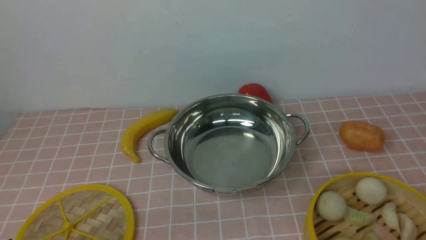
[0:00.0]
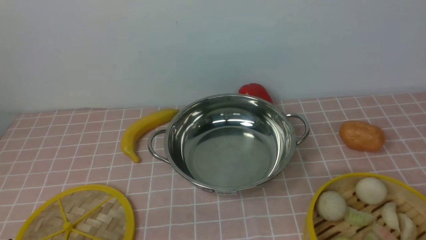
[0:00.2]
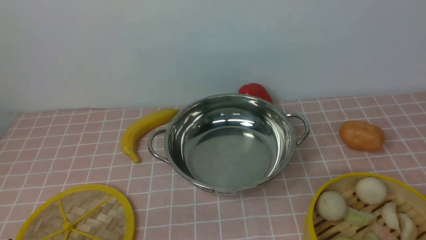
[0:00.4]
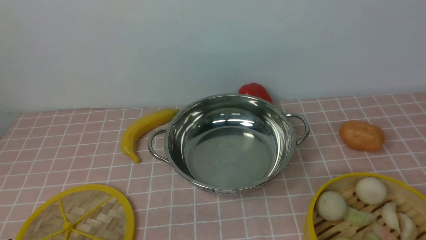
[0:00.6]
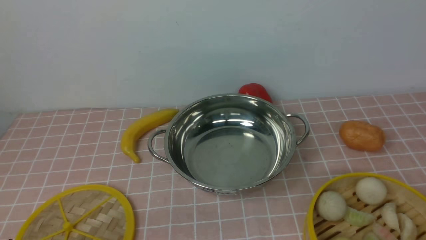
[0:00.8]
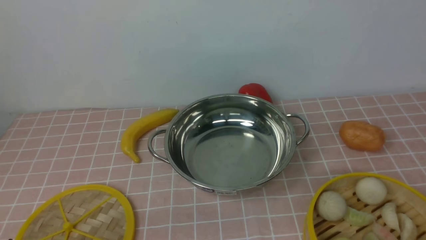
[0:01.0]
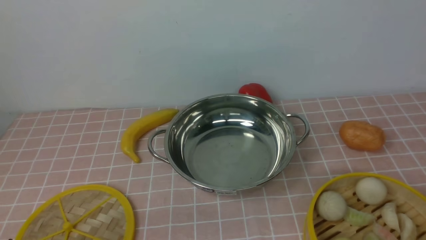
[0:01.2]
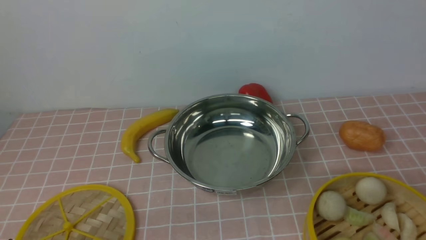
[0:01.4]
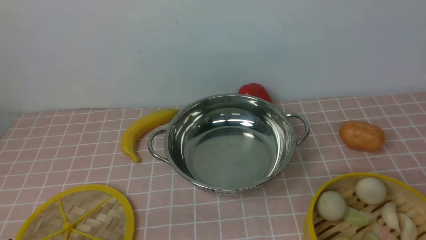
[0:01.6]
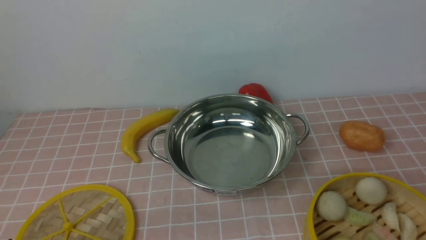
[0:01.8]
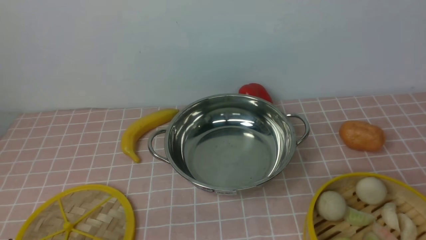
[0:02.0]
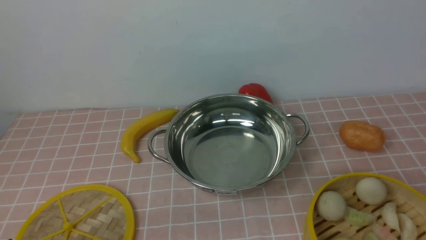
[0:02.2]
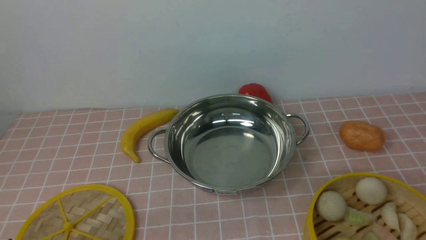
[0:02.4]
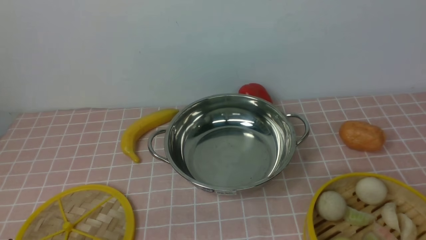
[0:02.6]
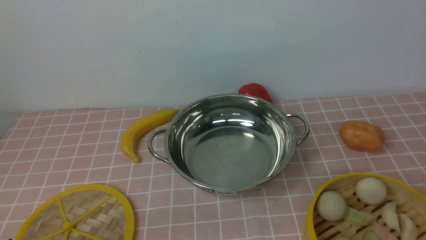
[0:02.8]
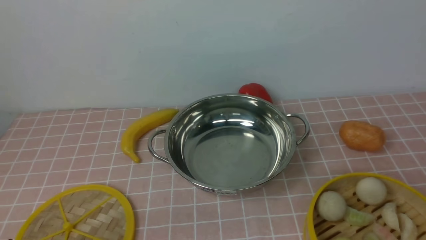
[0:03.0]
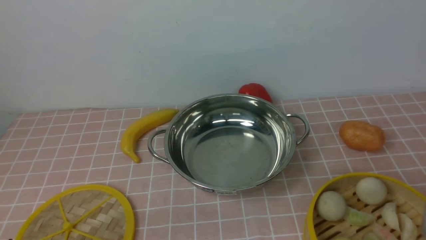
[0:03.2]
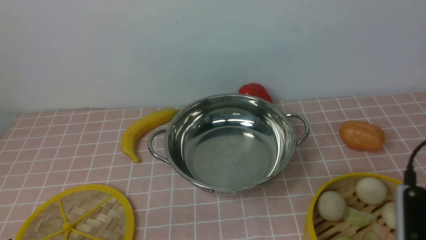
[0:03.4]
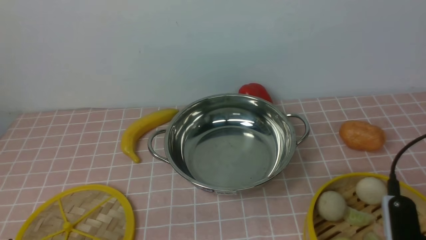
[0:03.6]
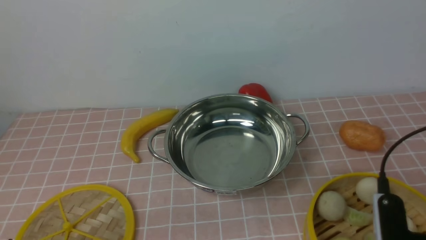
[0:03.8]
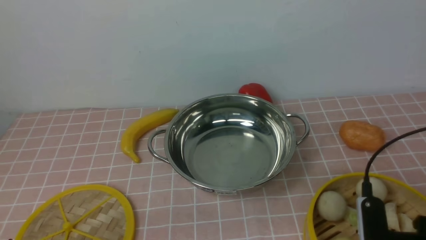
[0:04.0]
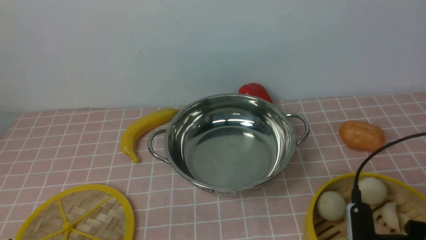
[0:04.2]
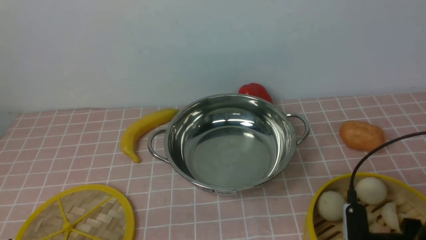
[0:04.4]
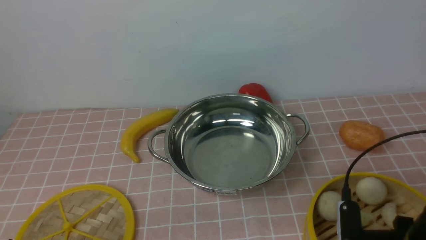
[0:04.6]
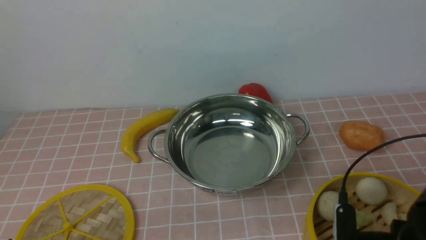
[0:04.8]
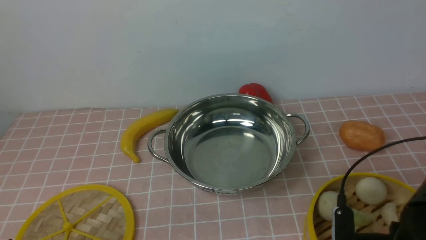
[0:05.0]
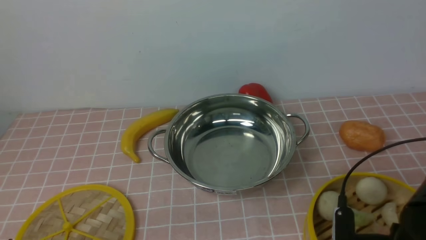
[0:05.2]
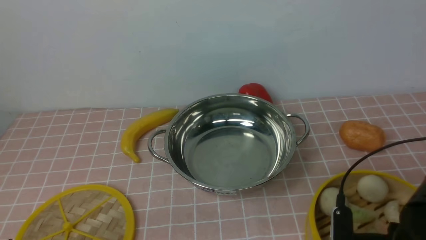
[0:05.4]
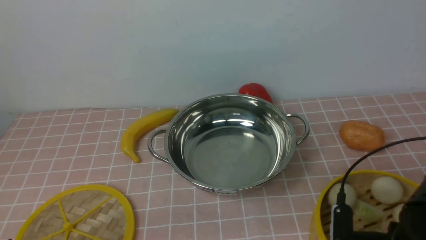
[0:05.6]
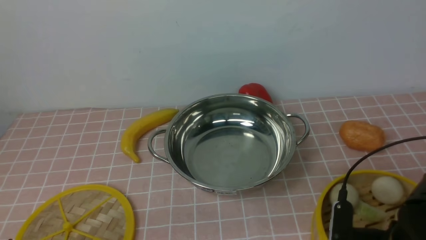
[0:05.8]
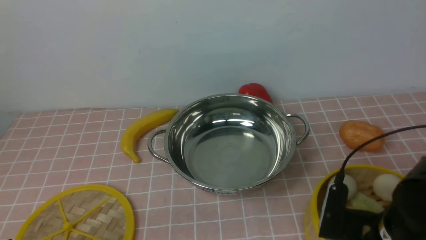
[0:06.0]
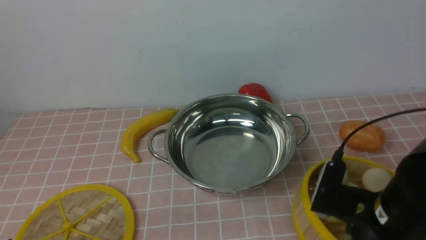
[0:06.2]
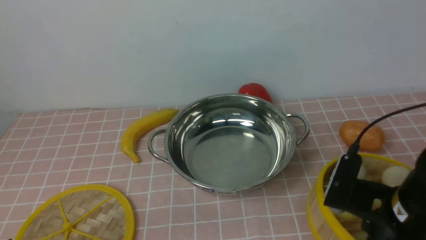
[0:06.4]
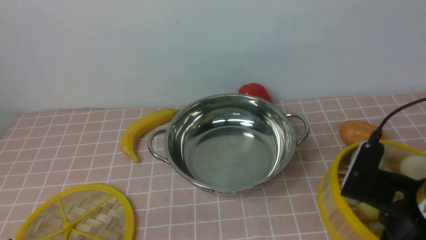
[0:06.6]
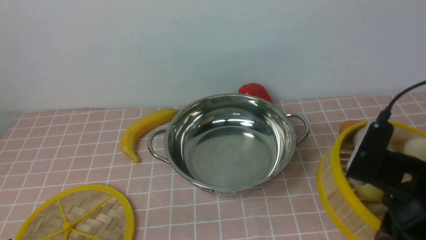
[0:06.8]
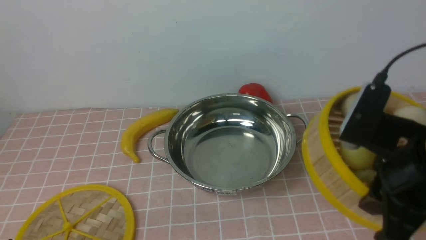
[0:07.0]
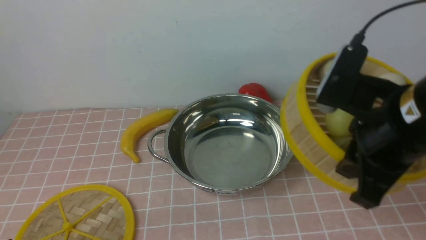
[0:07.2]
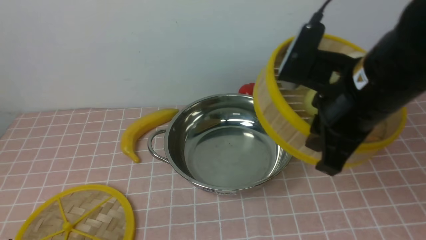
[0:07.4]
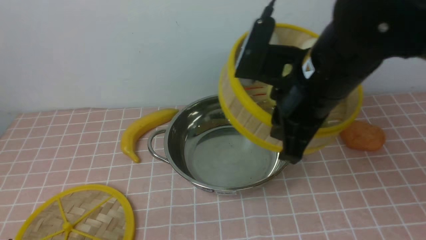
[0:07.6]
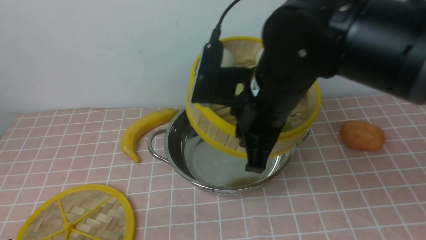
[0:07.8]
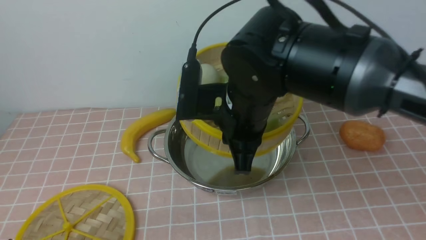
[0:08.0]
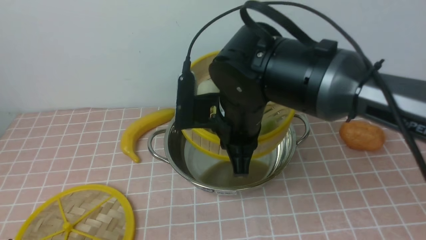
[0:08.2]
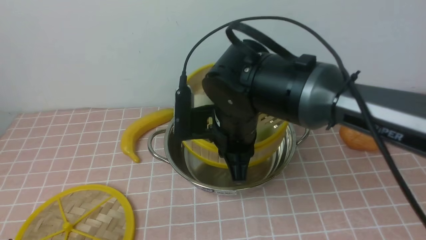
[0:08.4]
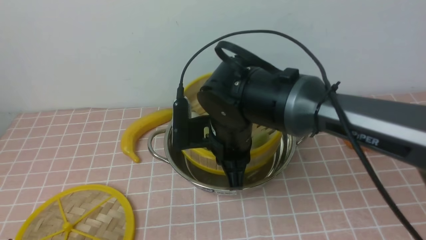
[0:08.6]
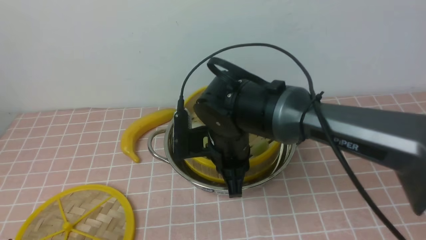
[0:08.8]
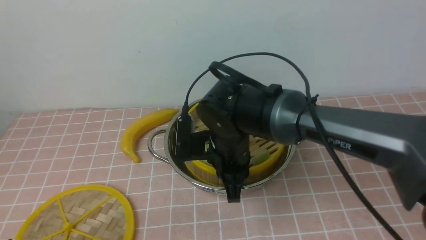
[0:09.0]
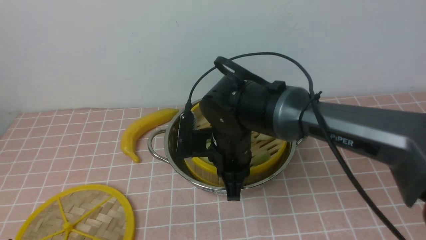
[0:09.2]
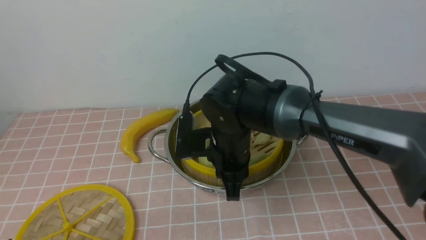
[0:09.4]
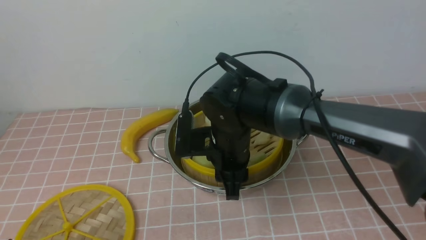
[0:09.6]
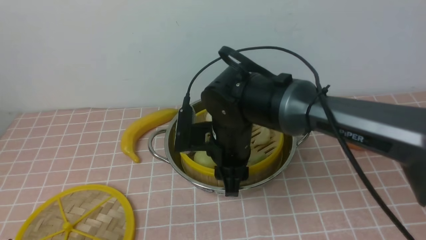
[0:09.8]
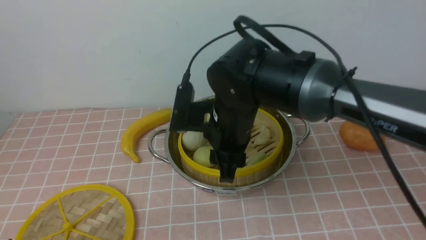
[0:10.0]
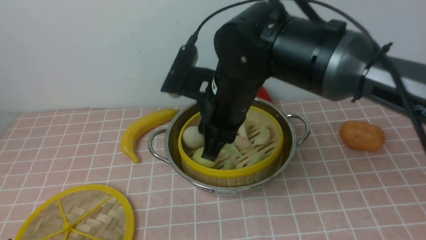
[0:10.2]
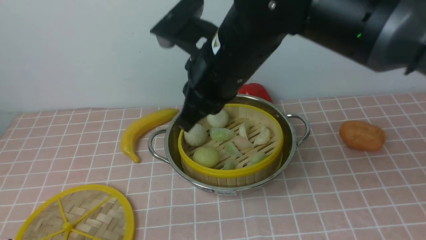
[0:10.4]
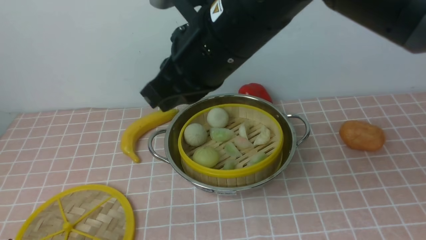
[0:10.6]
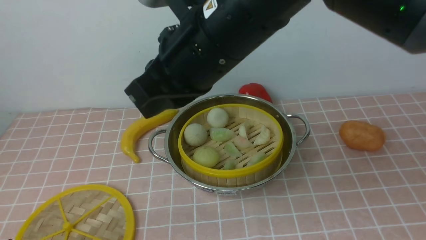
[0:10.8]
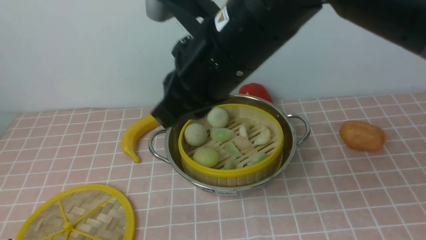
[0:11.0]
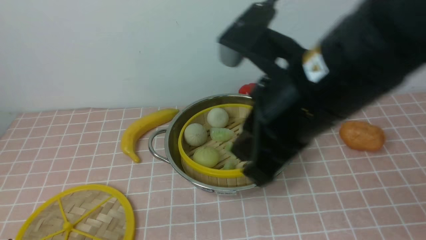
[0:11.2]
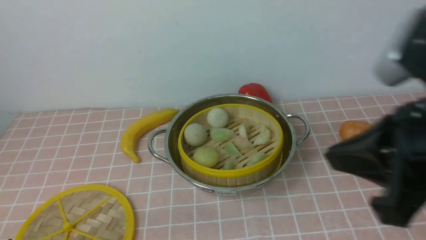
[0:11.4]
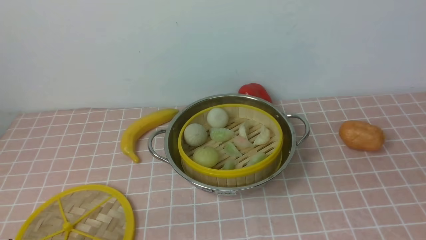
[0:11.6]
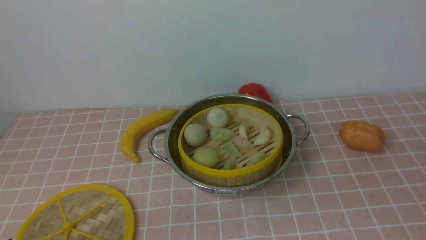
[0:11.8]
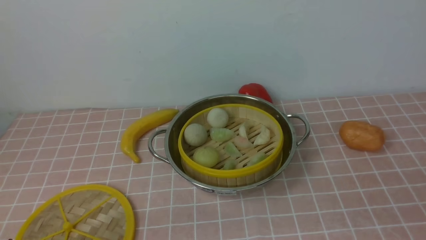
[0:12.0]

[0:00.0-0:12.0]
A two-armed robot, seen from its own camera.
Task of the whole recording: place the steamer in the pot on the pink tablecloth, and put the lid on the steamer.
Step, 0:00.0 to 0:06.0: use the right arm to lift the steamer closest to it.
Step, 0:06.2 to 0:09.8: use the right arm to put the steamer into the iron steamer pot in the middle.
0:03.0 to 0:04.4: The right gripper shifts about 10 cm downward, forward and to the left.
0:04.4 to 0:06.0: The right gripper closes.
0:06.0 to 0:07.6: The right gripper heads upward, to the left and forward, covering some 20 cm.
0:07.6 to 0:09.0: The right gripper shifts about 20 cm downward, to the left and forward.
0:09.0 to 0:10.4: The right gripper heads upward, covering roughly 15 cm, and opens, then closes once more.
0:10.4 to 0:12.0: The right gripper shifts approximately 40 cm to the right, backward and downward.

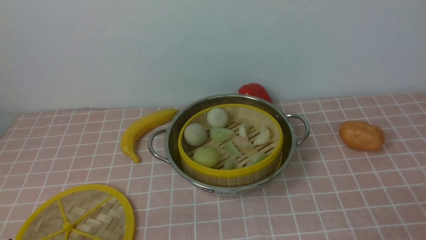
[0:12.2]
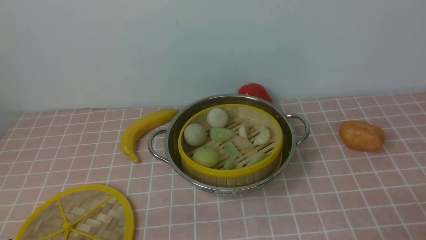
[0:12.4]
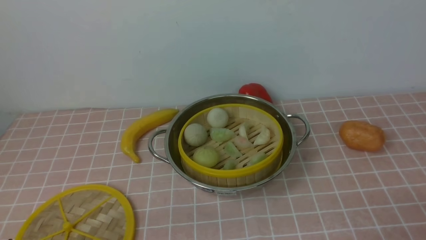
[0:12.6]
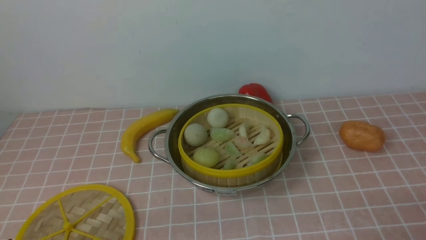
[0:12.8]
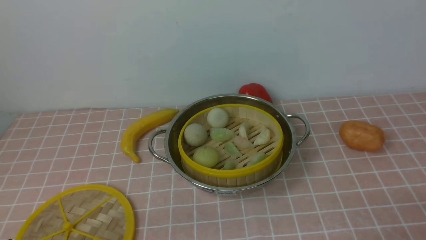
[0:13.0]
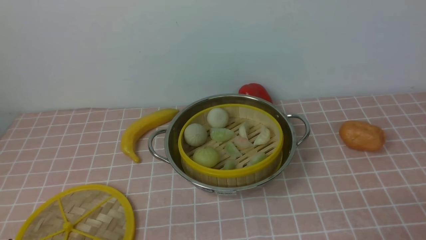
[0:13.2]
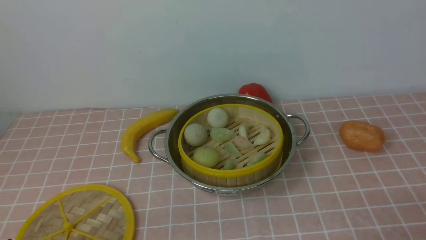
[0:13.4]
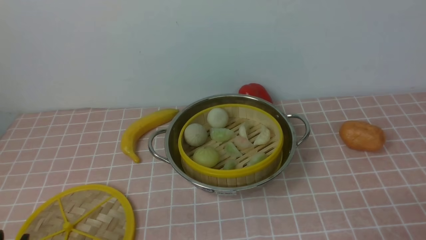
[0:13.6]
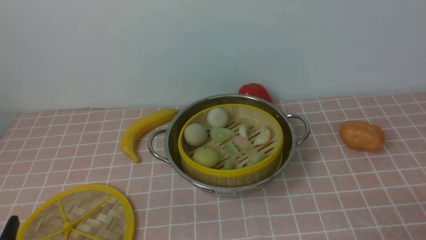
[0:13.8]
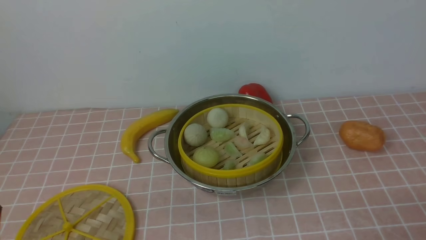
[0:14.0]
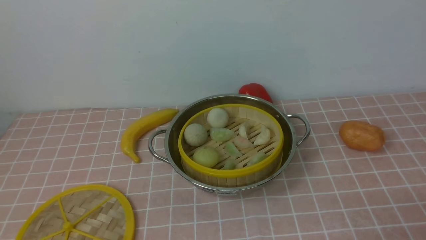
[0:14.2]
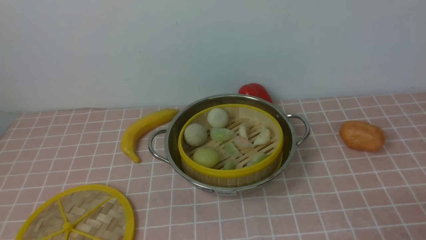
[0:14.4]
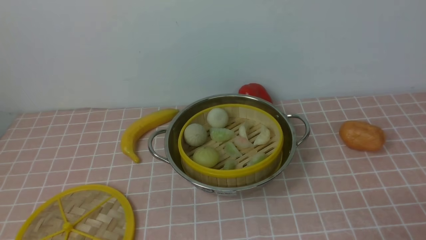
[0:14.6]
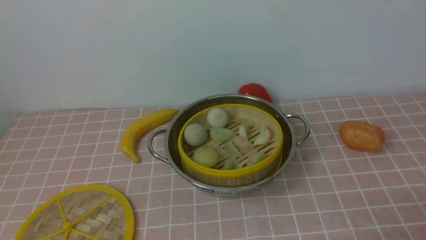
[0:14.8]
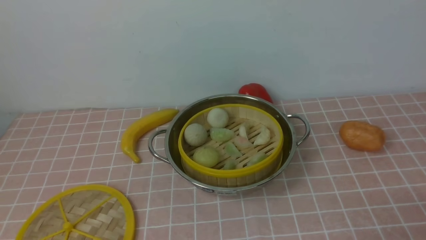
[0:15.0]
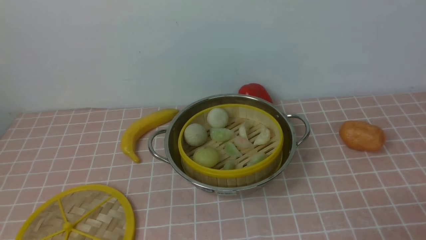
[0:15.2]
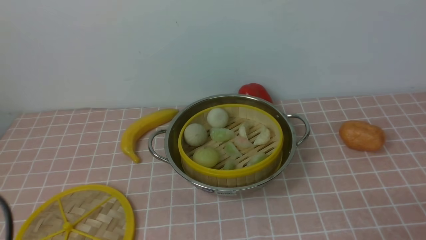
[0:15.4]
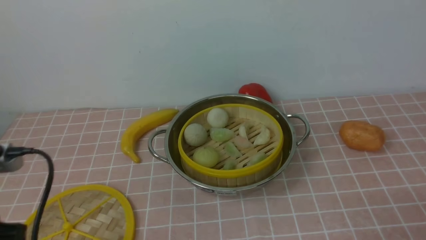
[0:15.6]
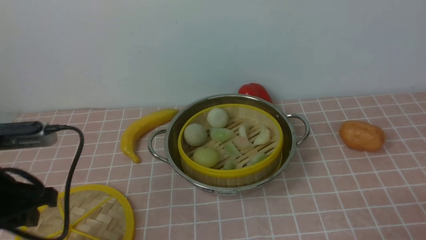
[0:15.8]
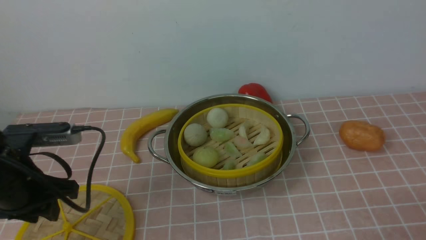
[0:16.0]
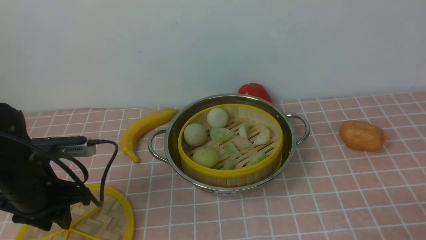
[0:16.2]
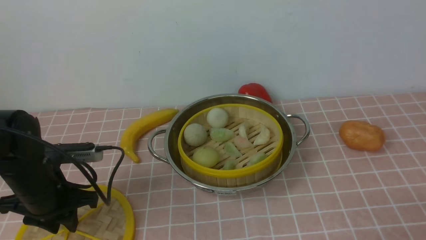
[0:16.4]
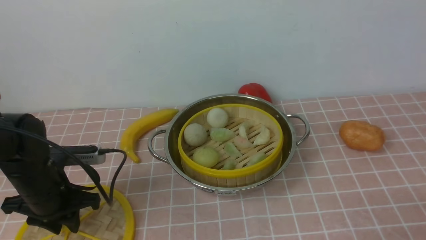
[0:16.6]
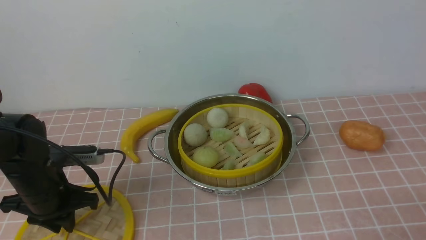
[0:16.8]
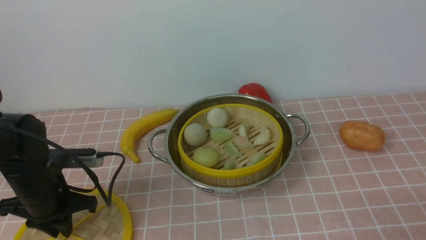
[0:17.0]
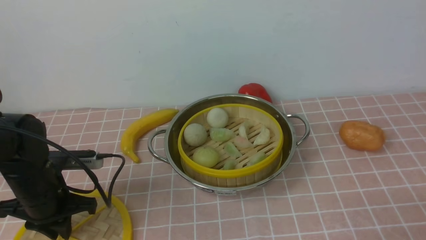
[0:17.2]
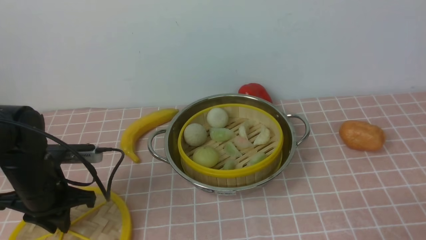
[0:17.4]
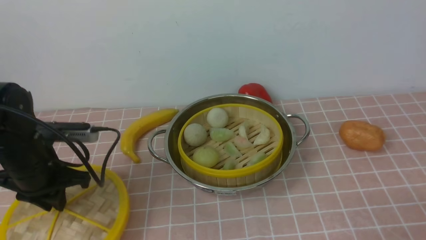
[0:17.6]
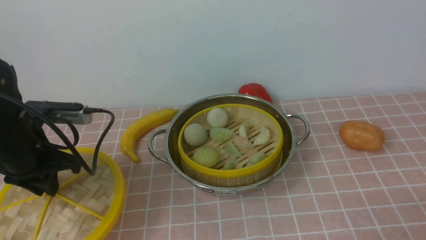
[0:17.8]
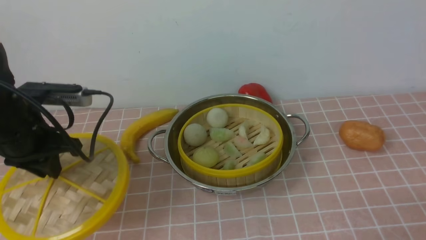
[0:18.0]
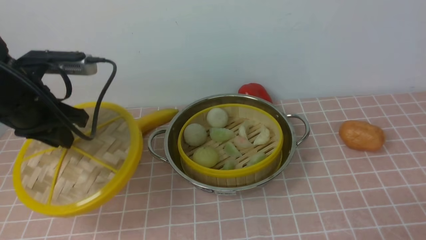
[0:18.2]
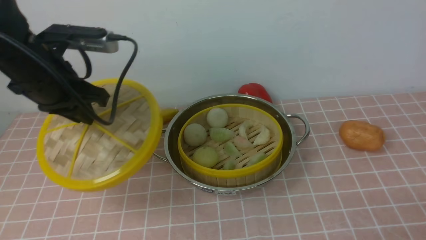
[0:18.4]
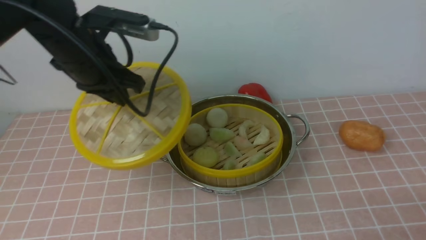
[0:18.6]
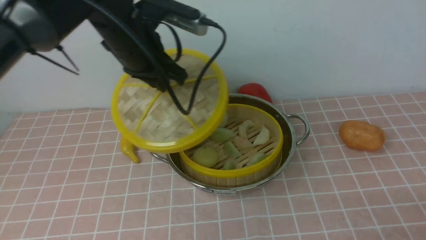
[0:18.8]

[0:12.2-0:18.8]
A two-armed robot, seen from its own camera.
Task of the whole recording: place the steamer in the pot on the pink tablecloth, and put the lid on the steamer.
Step, 0:12.2 to 0:17.4: use the left arm to lift the lid of the steamer.
0:15.4 to 0:17.2: The left gripper is displaced forward and downward by roughly 25 cm, and closes up.
0:17.2 to 0:18.8: The left gripper goes about 25 cm to the right, upward and forward.
